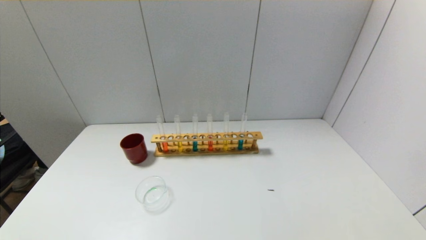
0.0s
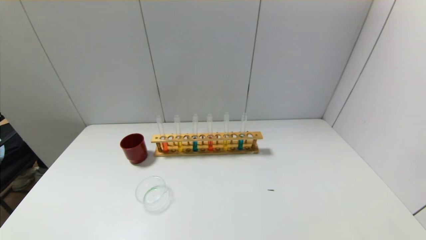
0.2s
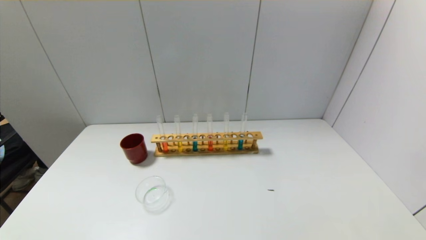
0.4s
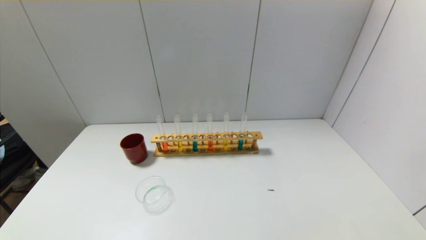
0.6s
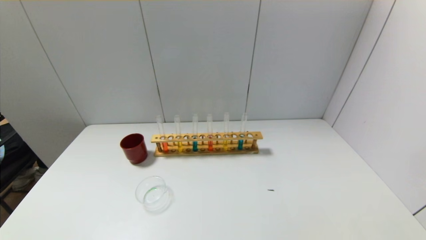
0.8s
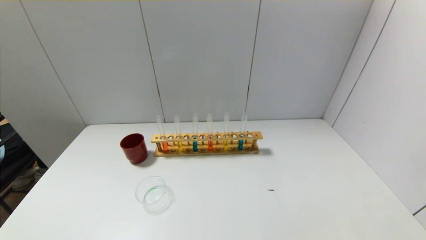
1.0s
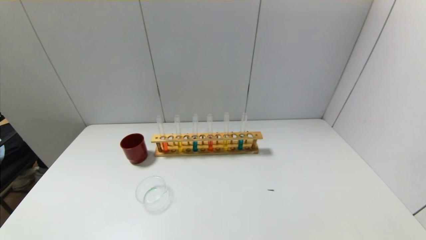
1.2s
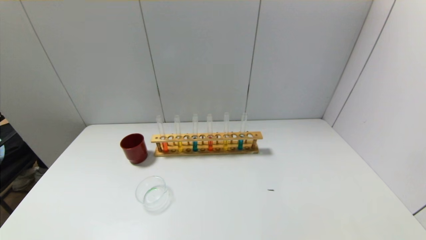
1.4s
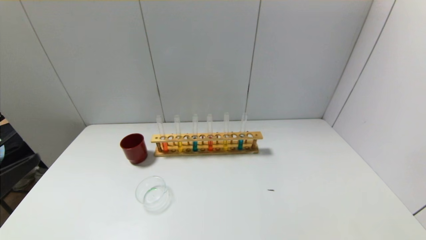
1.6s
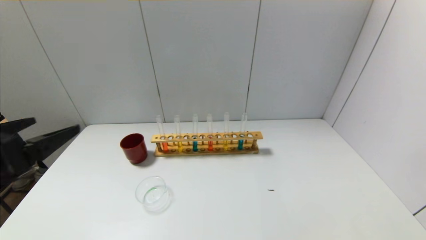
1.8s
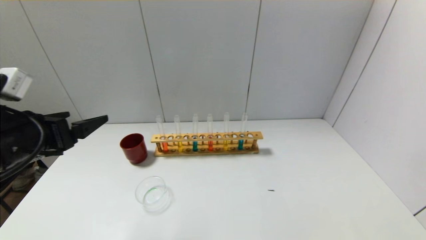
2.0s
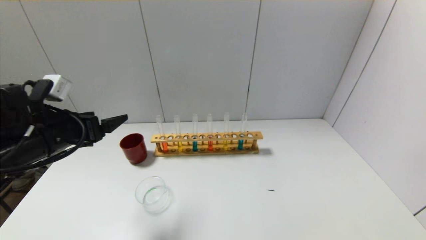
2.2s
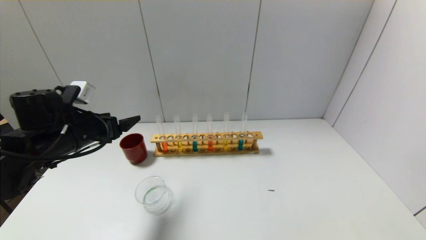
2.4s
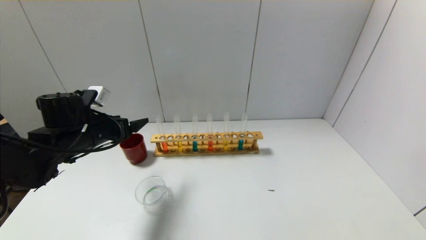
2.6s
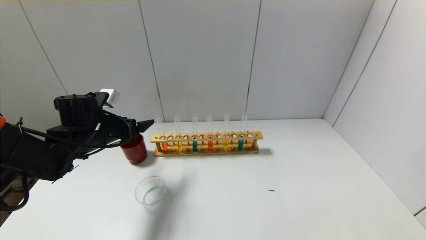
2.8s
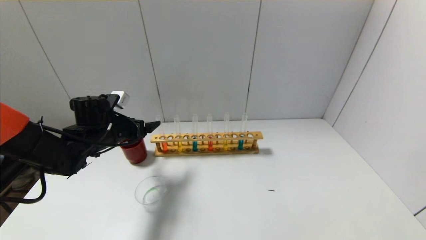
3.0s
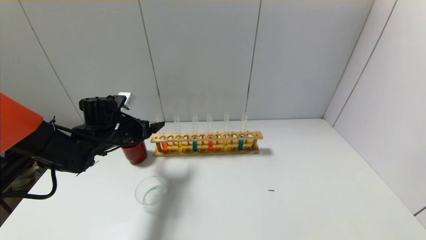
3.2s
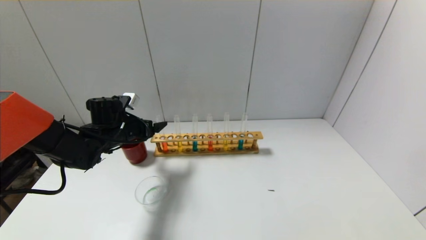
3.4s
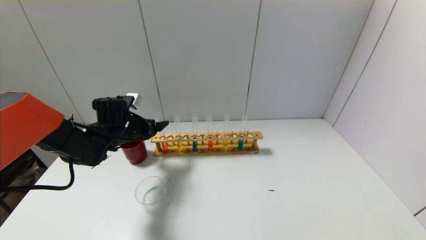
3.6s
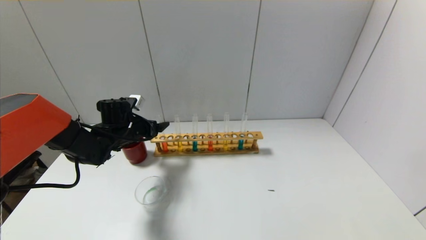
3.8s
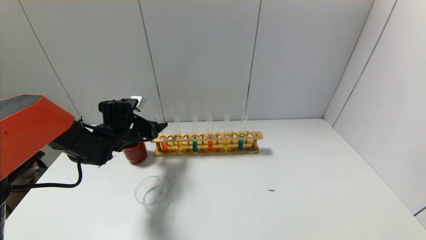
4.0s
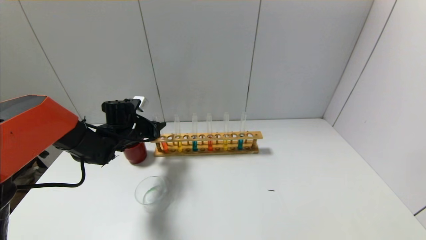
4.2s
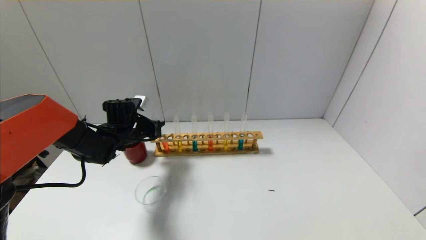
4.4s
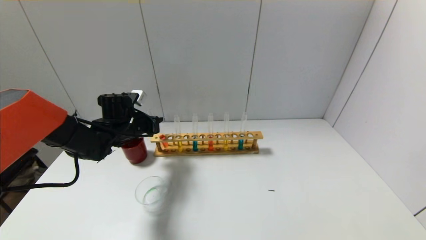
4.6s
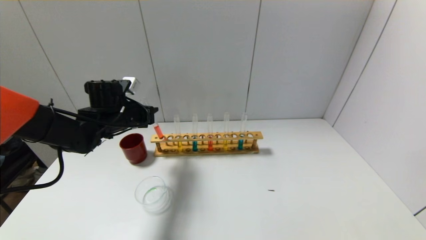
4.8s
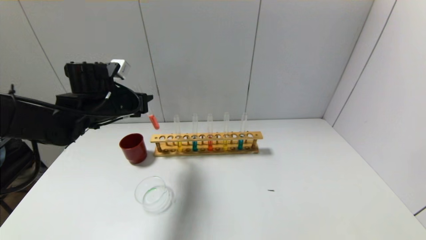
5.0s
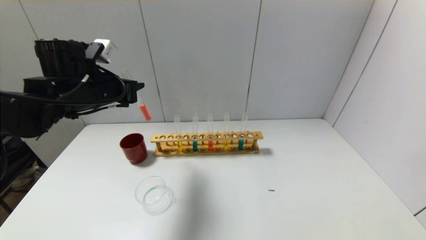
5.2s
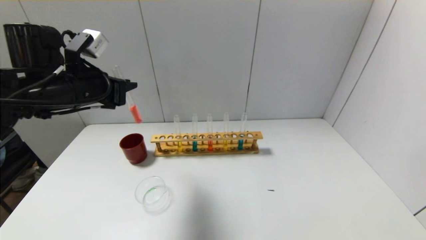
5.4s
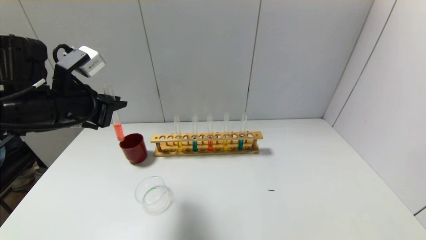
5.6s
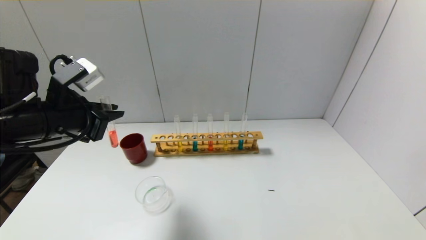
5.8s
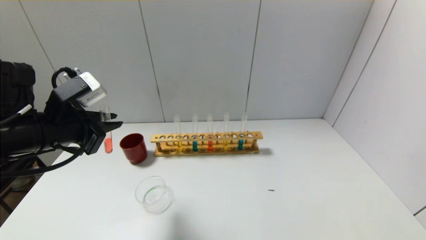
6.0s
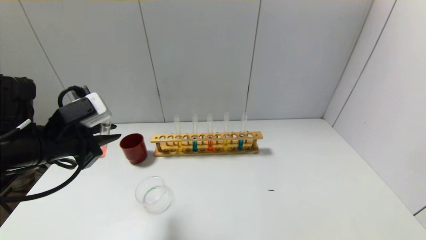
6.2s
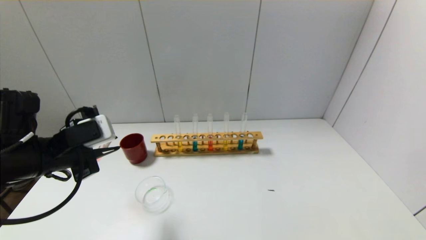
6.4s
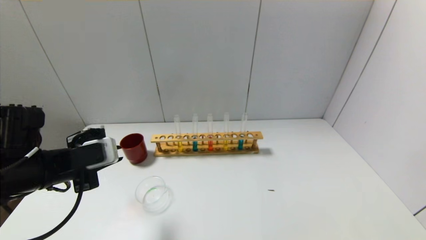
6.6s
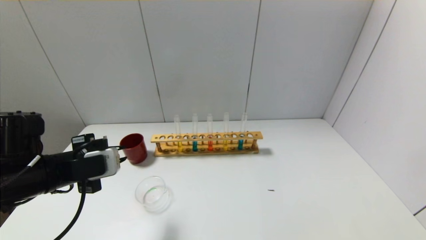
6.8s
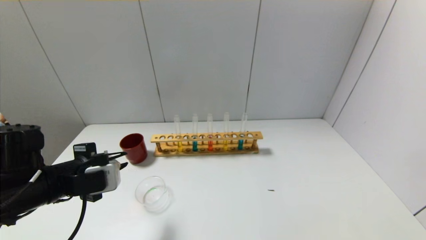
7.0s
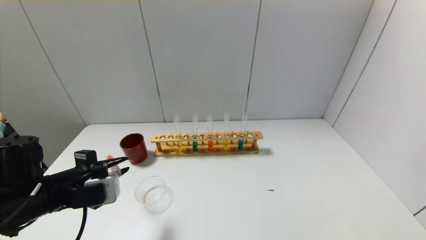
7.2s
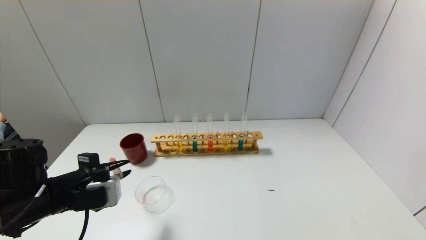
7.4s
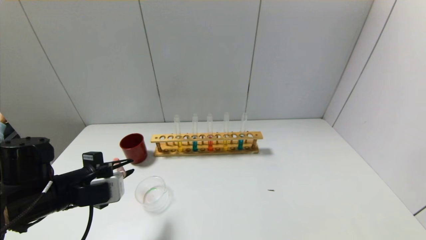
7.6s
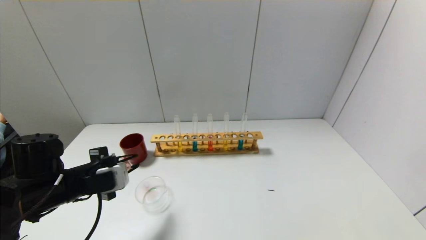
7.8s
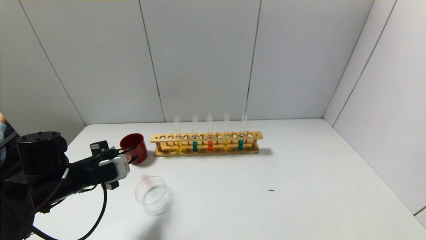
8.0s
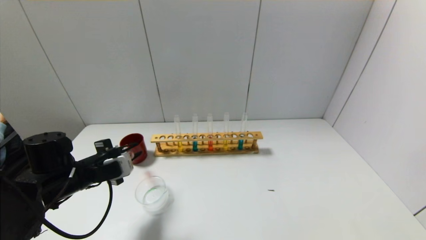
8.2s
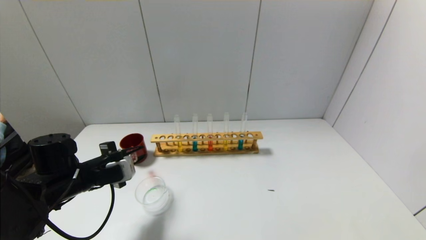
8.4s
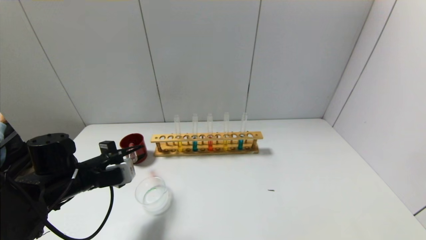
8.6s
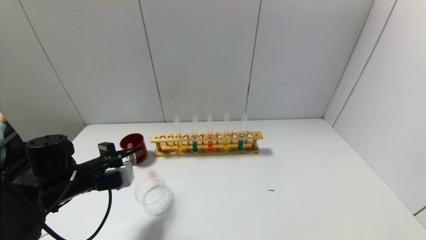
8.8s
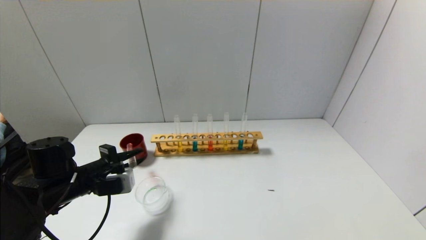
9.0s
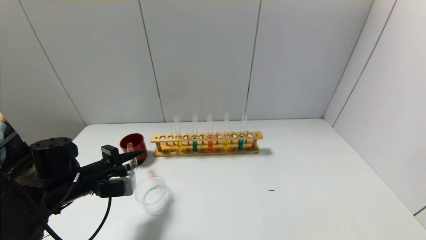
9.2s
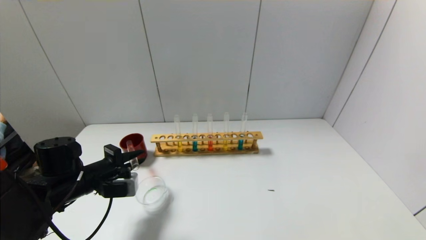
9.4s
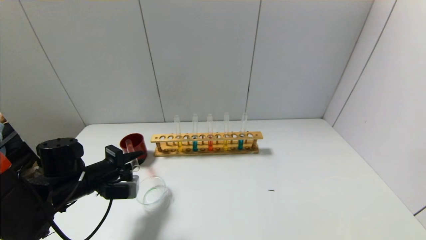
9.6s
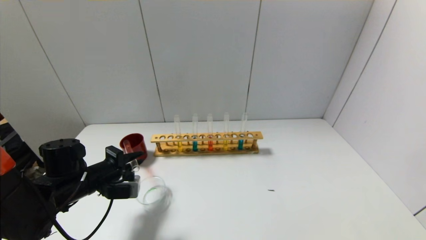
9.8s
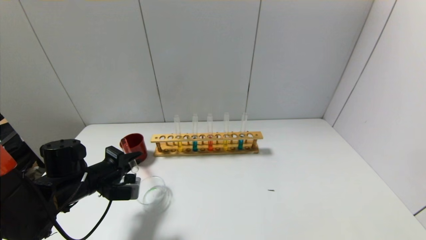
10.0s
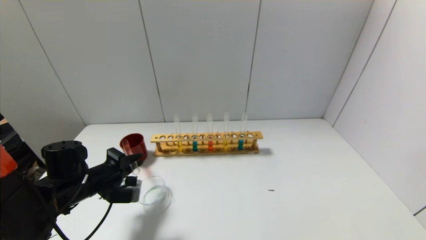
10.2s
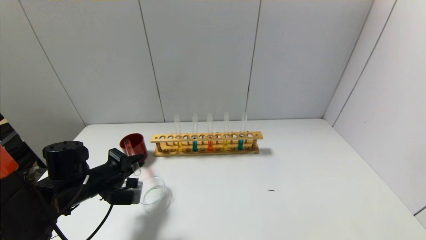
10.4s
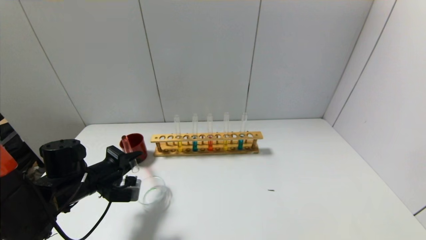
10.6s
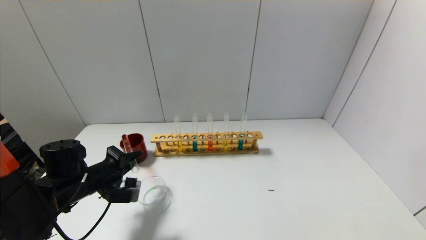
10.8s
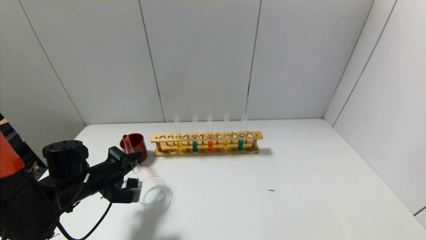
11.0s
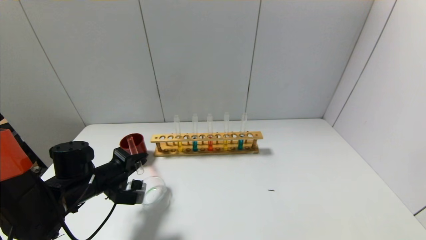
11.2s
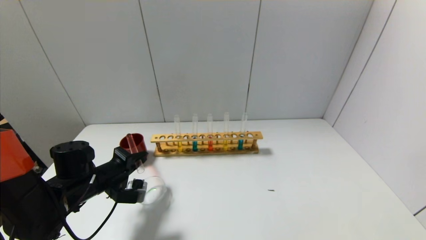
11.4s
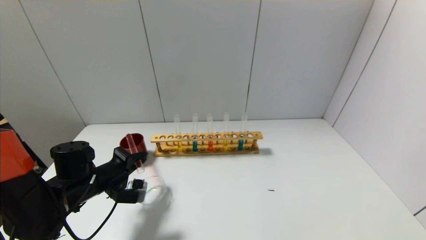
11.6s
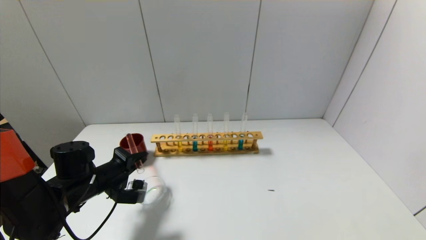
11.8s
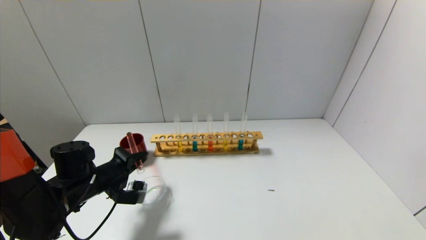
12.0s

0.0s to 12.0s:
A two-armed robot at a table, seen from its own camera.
Step, 0.0s to 4.4s: Grasp the red reagent with the left gripper.
1.6s to 3.0s: The left gripper heads forward, covering roughly 30 cm.
3.0s to 4.4s: The left gripper heads forward, covering about 5 cm, and closes its fingers.
4.4s to 6.0s: The left gripper heads backward and upward, covering roughly 20 cm.
6.0s to 7.6s: The left gripper shifts about 10 cm downward.
7.6s to 9.0s: The left gripper shifts by approximately 5 cm.
9.0s to 10.4s: The grippers make only small movements.
10.4s to 12.0s: There are only small adjustments of the grippers.

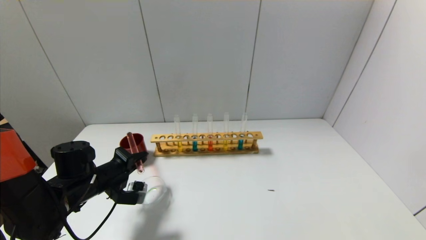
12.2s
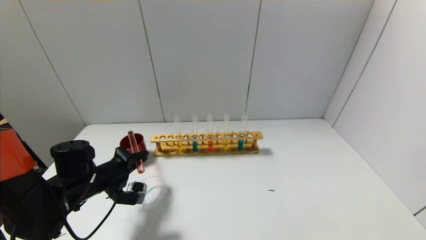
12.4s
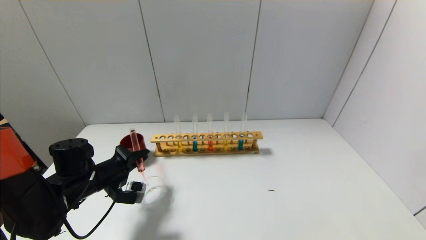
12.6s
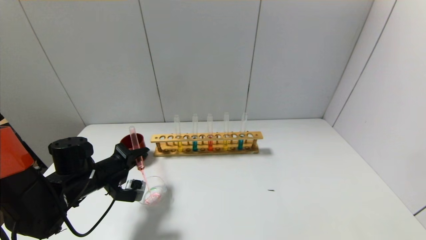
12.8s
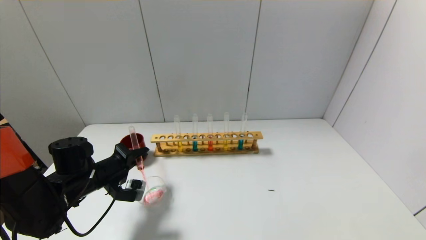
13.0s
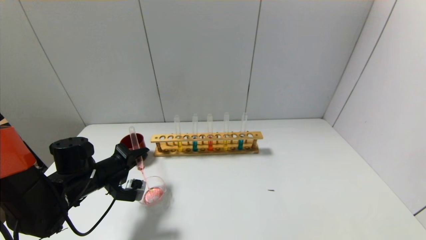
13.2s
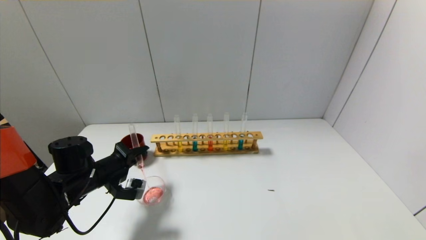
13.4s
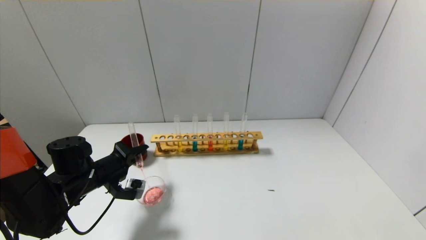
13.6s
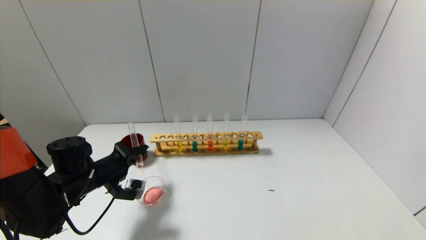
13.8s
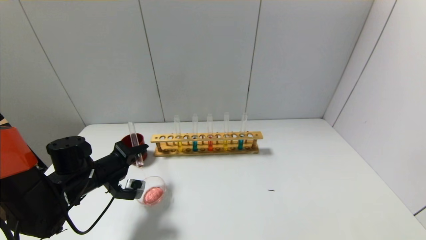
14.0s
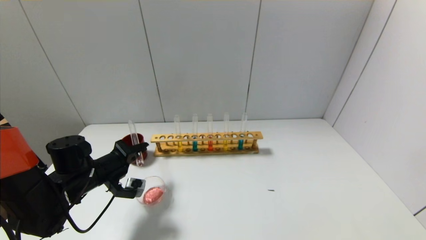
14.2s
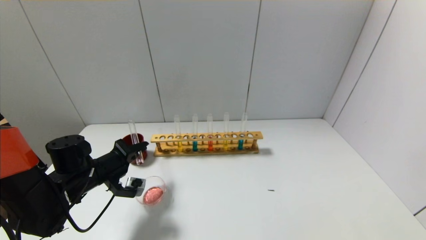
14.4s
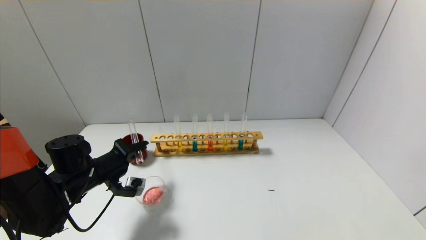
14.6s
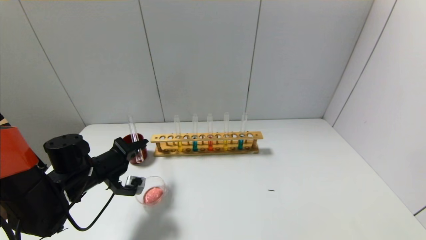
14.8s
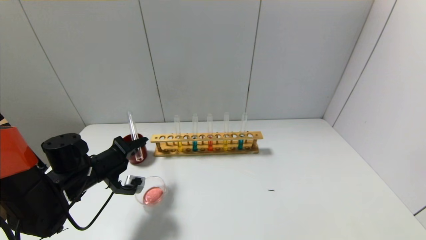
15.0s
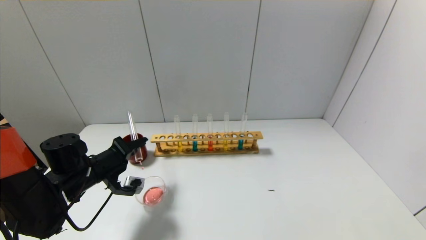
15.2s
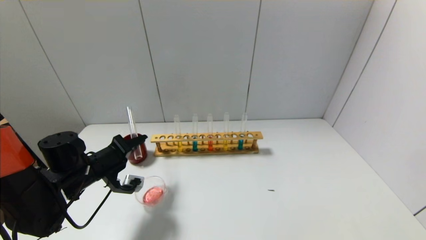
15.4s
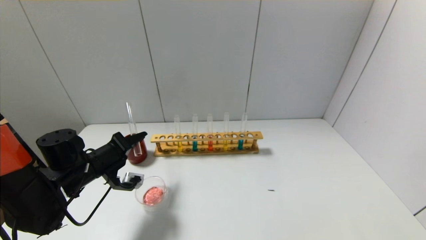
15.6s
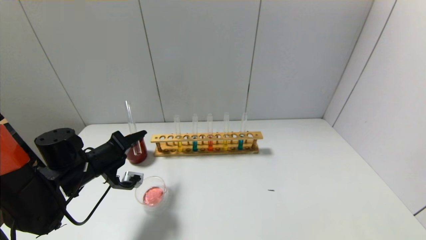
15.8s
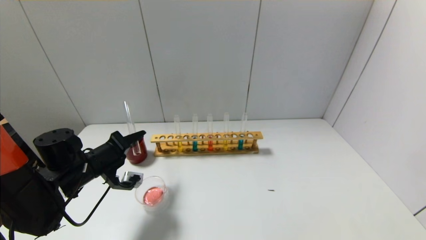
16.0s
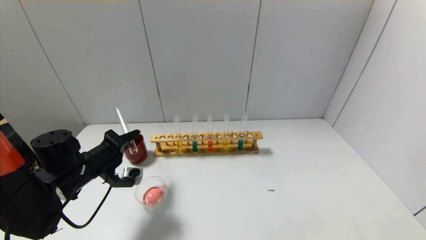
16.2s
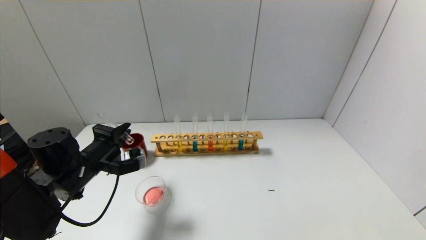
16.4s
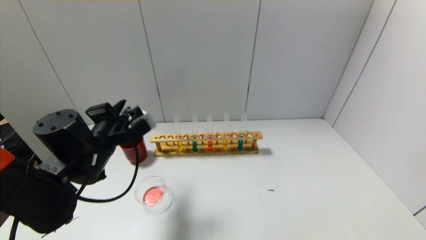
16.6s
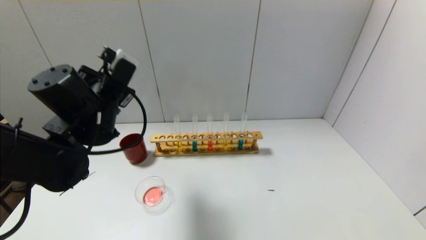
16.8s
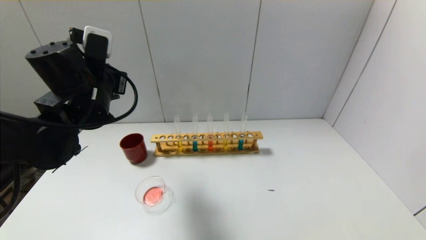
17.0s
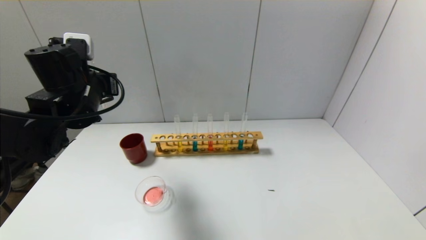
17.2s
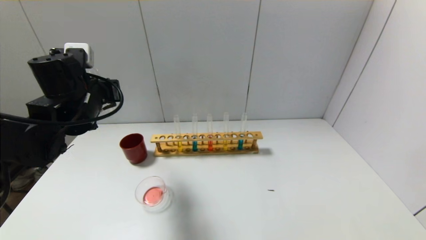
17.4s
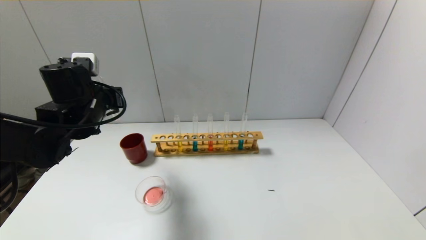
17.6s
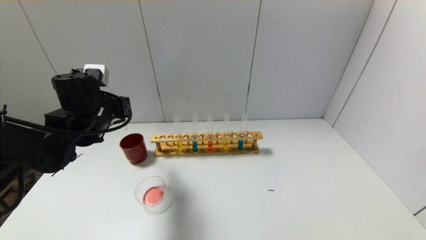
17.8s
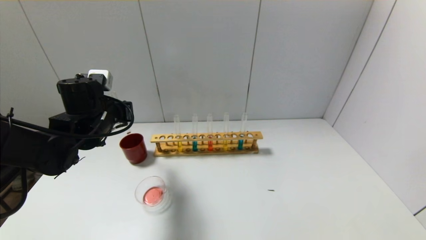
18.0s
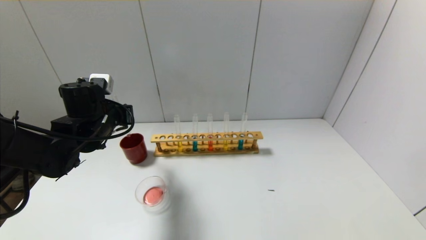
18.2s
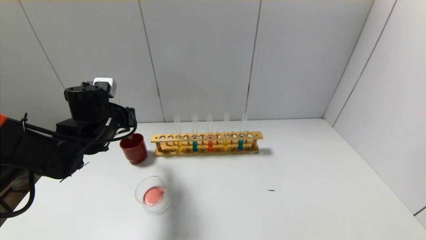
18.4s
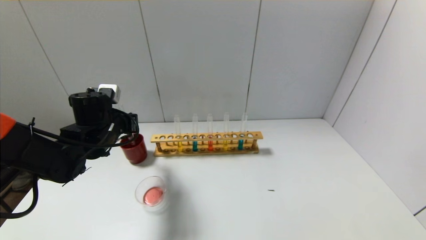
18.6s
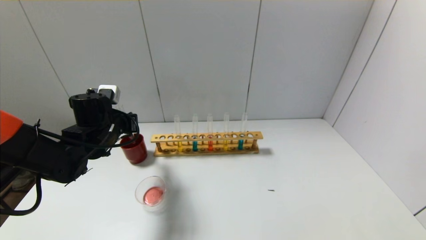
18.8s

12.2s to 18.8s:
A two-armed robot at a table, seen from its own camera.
Step, 12.2s to 16.2s: Pour the red reagent into the graduated cylinder with the left gripper.
12.2s to 13.8s: The grippers stay close to where they were, moving slightly.
13.8s to 15.4s: The grippers move only a little.
15.4s to 17.2s: The left gripper heads upward, covering roughly 15 cm.
17.2s to 18.8s: The left gripper heads downward, covering about 10 cm.
